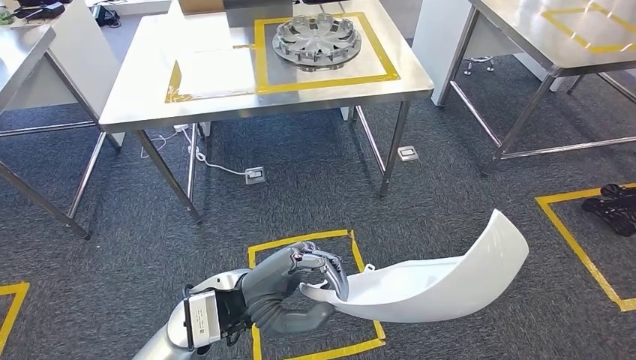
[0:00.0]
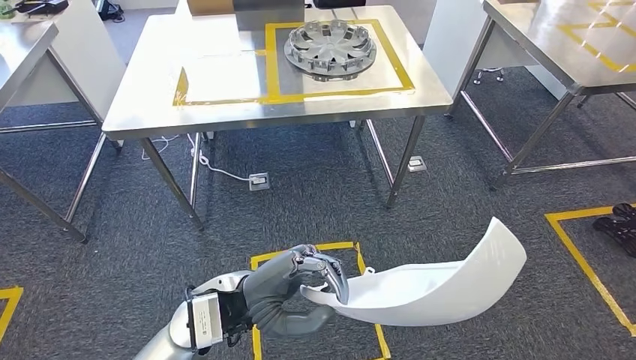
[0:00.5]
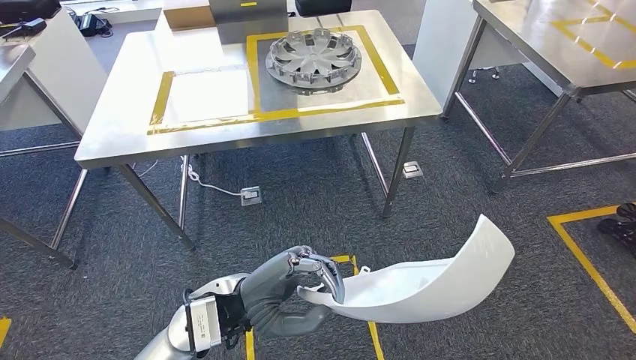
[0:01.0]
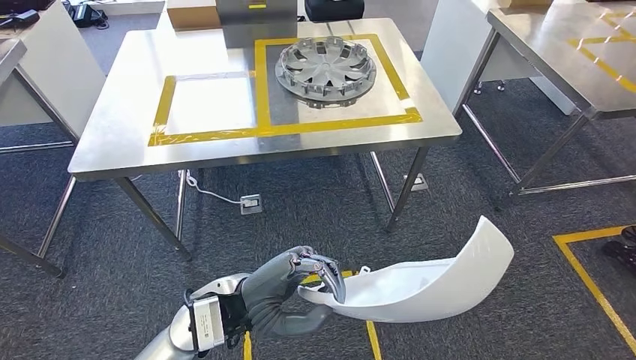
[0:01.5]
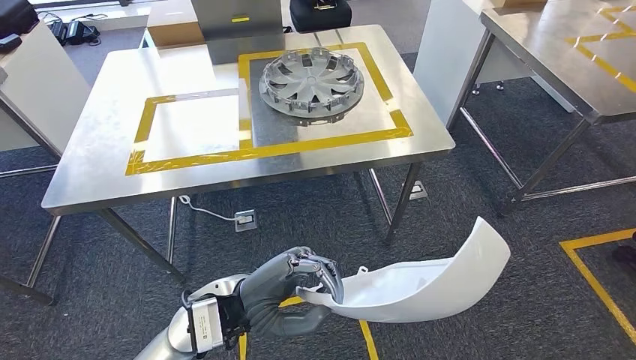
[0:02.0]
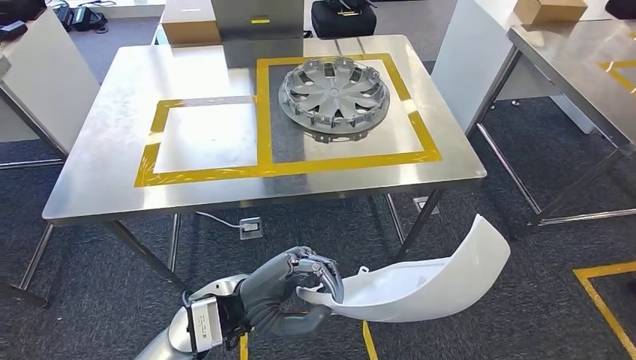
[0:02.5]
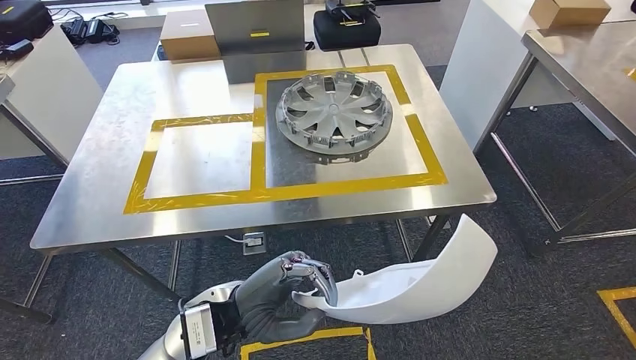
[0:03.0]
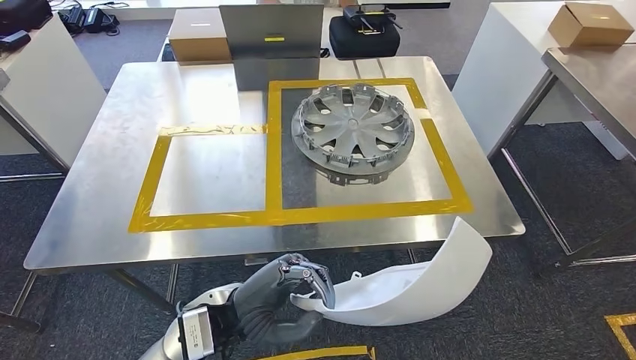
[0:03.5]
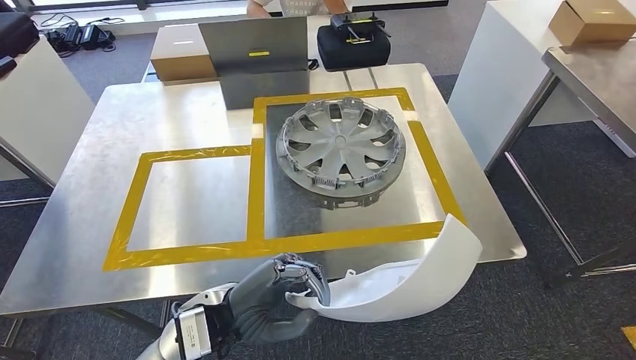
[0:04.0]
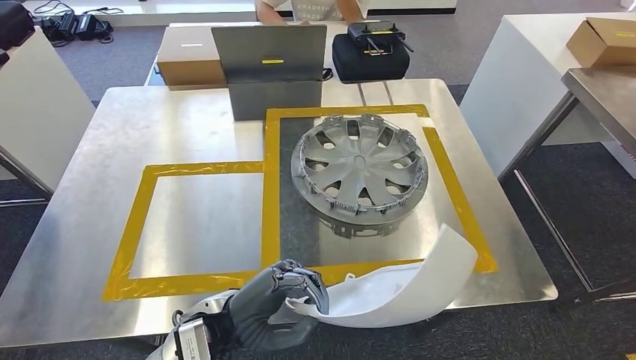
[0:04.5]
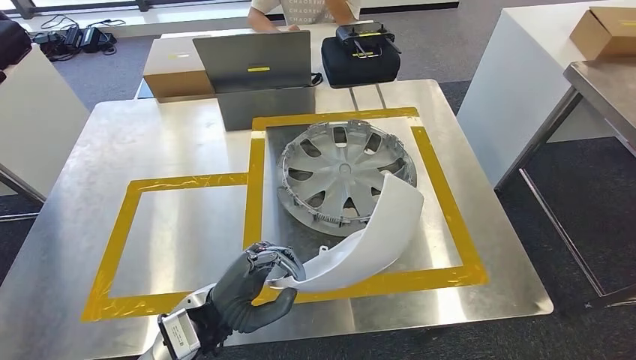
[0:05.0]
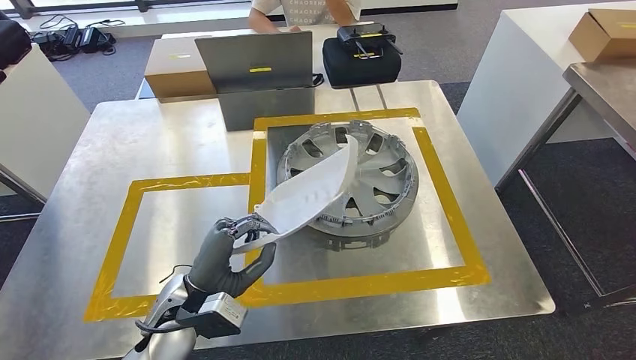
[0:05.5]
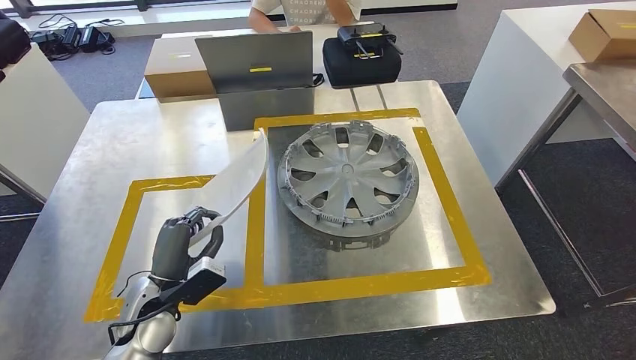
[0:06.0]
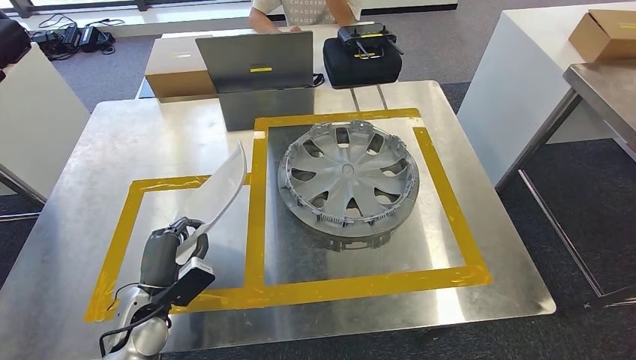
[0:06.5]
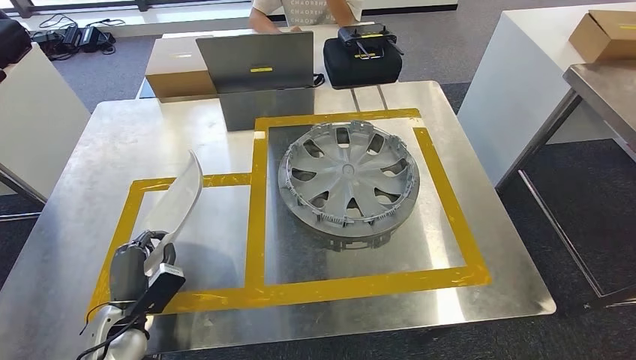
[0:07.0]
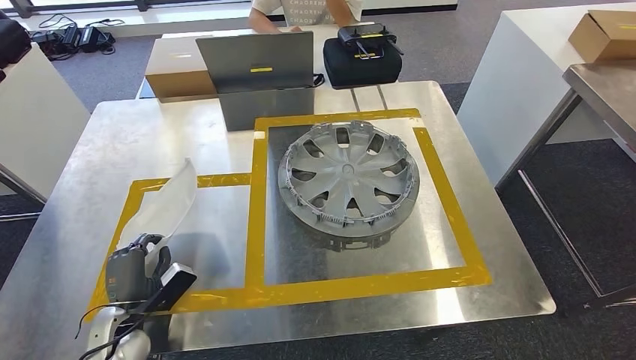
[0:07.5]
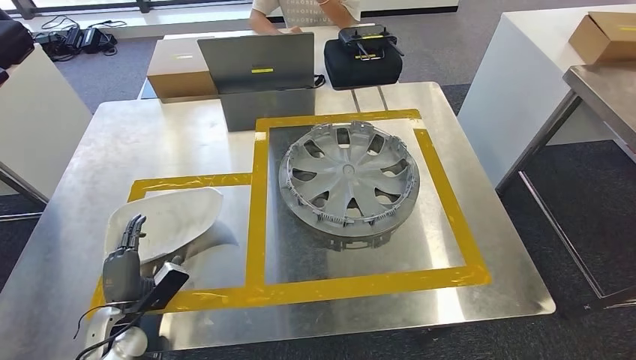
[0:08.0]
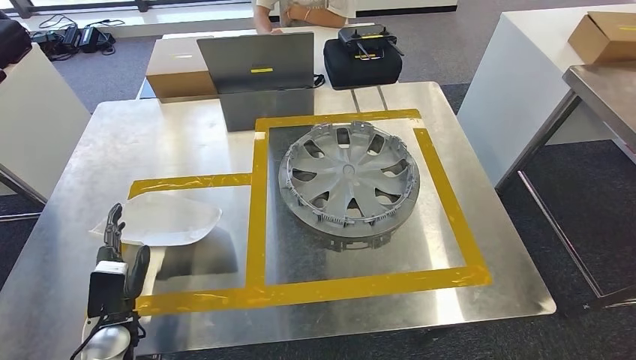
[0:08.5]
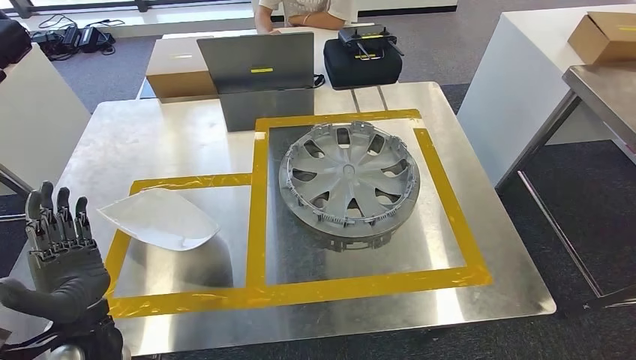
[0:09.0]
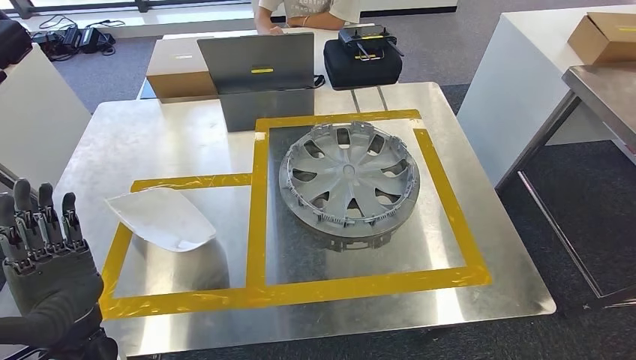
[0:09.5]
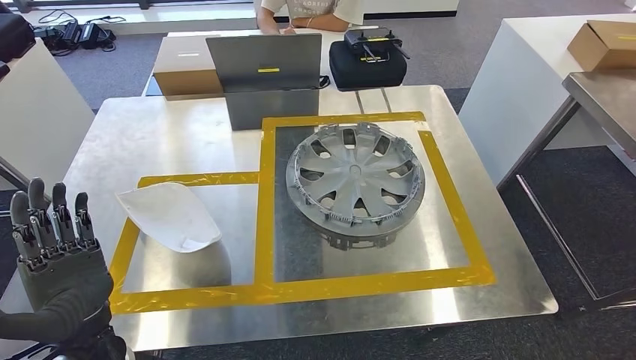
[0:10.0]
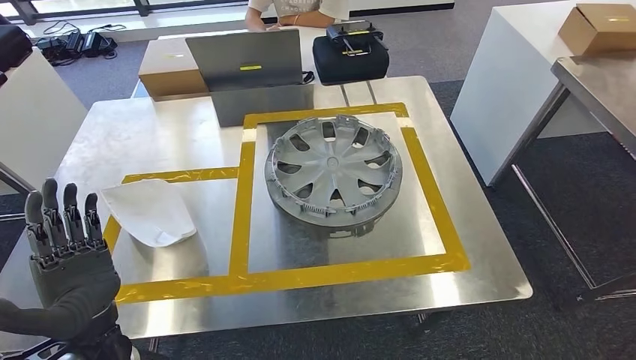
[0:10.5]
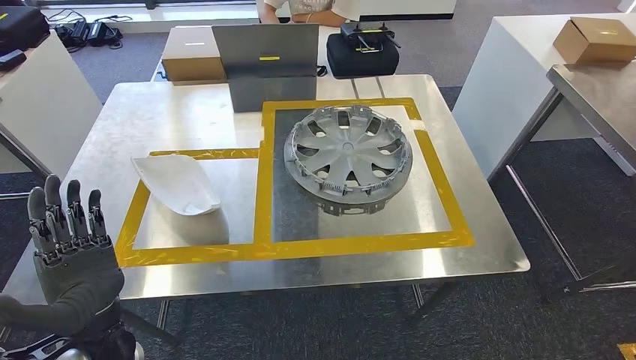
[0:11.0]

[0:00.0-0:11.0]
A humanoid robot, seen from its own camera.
Step, 0:00.0 to 0:04.0: Move the small component to the workbench.
Step, 0:04.5 to 0:09.5: Insert the small component into the corresponding slot on the workbench.
0:05.5 to 0:07.5: The left hand moves to the left and downward, roughly 20 cm.
0:07.5 to 0:09.0: The left hand goes about 10 cm upward.

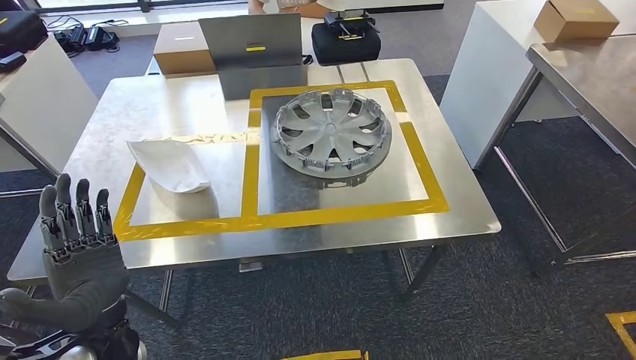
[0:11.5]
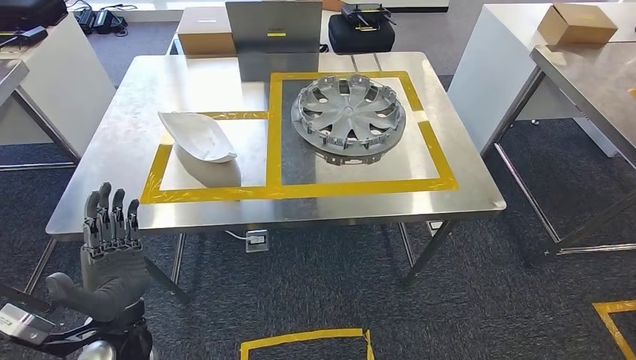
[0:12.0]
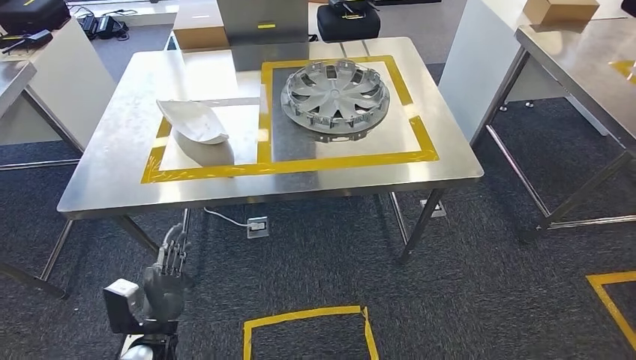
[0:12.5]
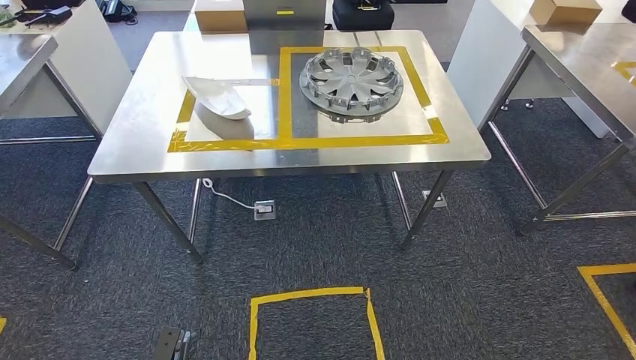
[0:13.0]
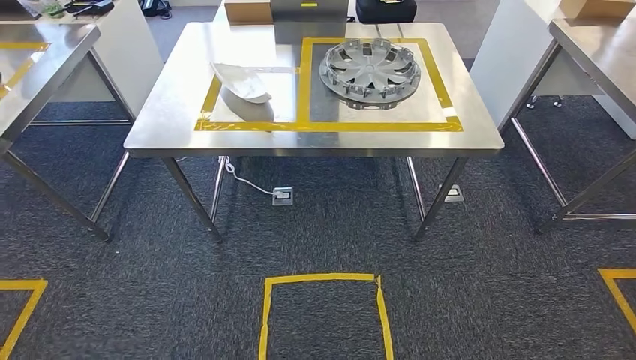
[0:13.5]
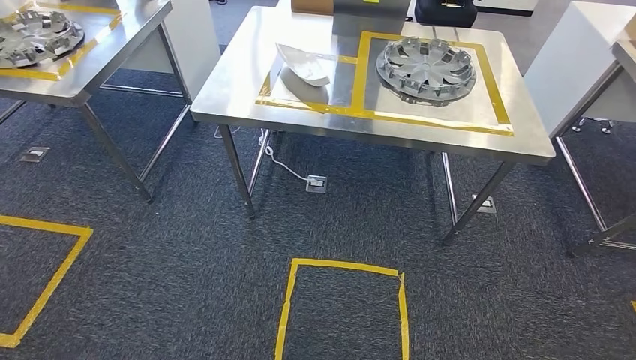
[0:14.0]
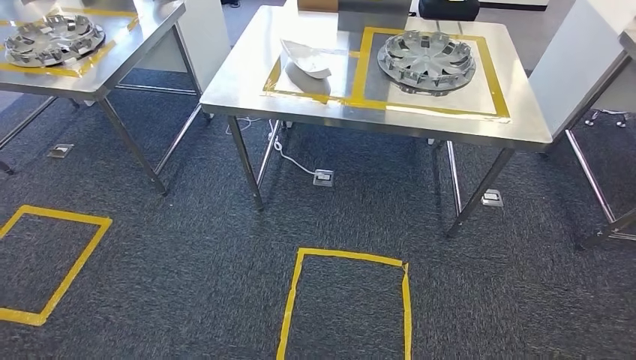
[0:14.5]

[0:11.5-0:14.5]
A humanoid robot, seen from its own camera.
Step, 0:11.5 to 0:14.5: Return to the initial position at the workbench.
